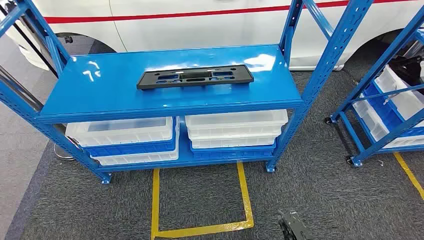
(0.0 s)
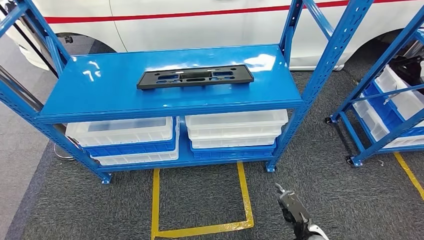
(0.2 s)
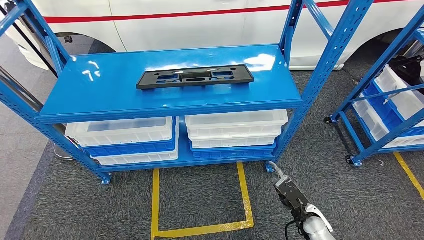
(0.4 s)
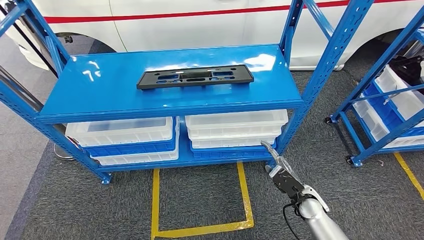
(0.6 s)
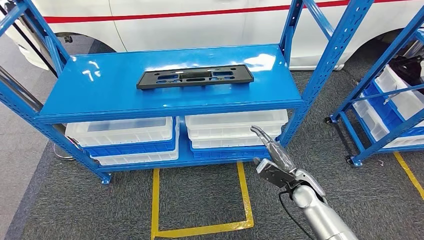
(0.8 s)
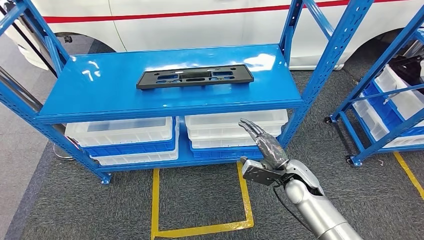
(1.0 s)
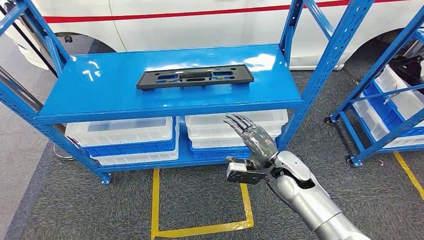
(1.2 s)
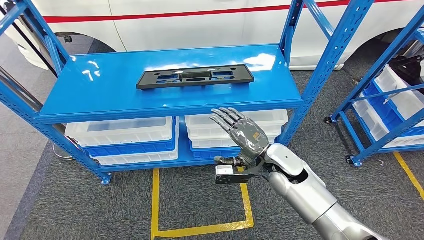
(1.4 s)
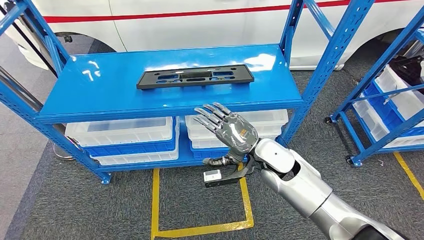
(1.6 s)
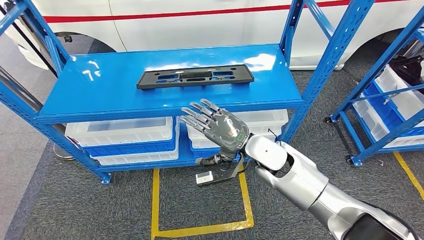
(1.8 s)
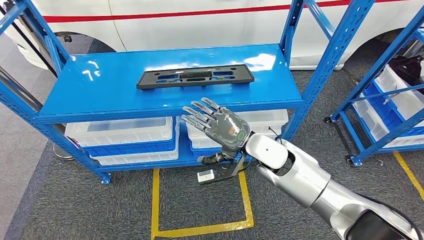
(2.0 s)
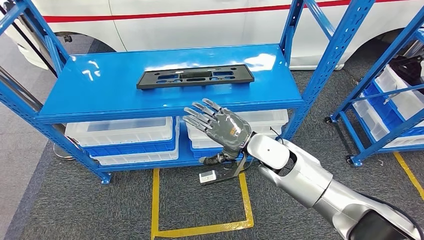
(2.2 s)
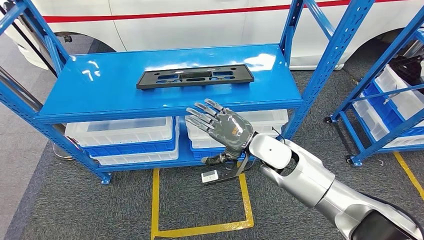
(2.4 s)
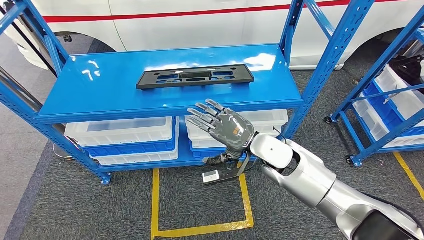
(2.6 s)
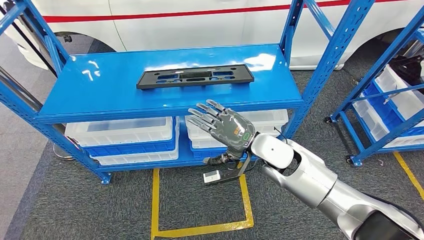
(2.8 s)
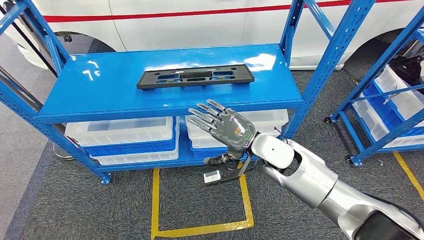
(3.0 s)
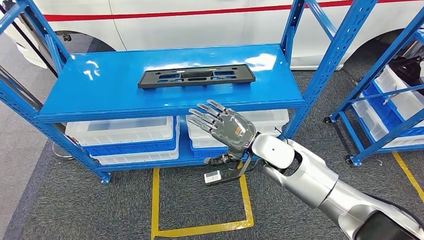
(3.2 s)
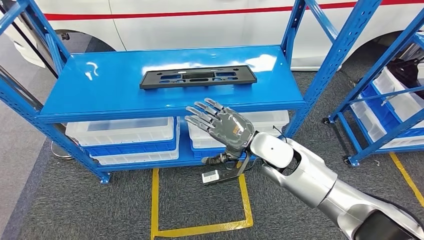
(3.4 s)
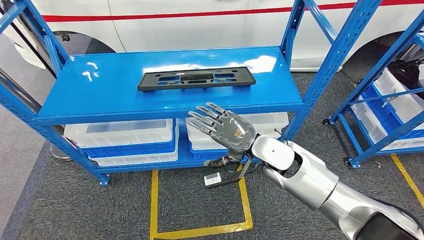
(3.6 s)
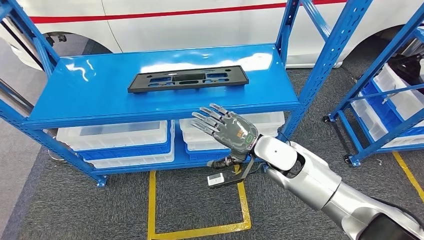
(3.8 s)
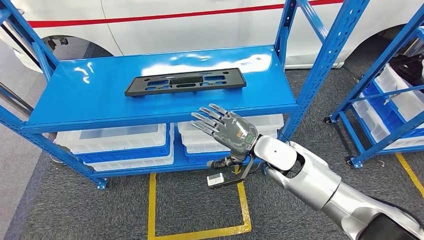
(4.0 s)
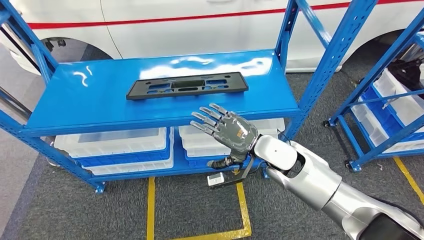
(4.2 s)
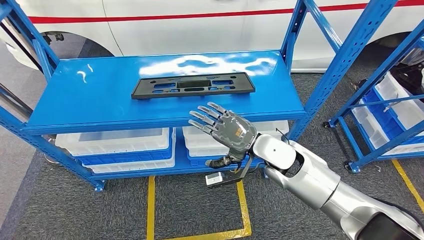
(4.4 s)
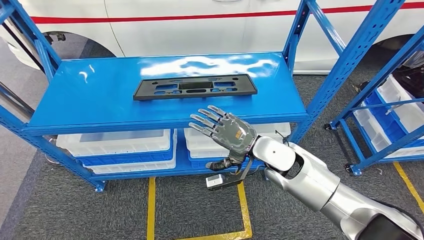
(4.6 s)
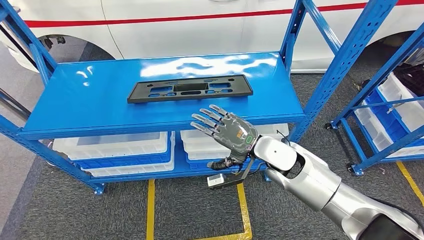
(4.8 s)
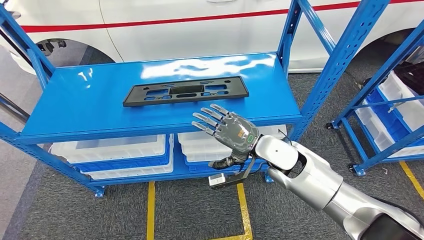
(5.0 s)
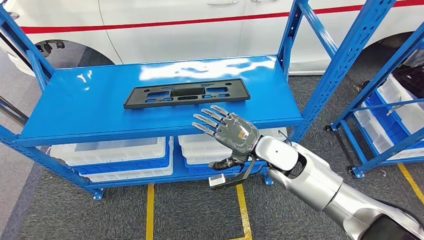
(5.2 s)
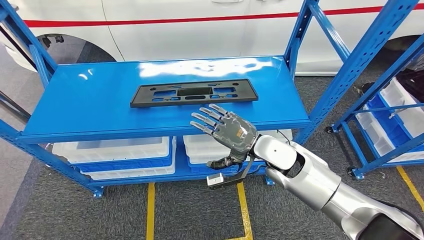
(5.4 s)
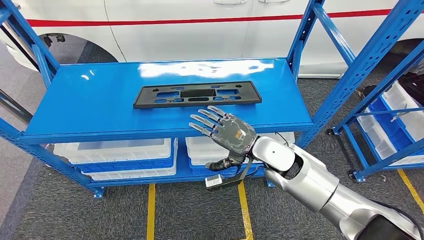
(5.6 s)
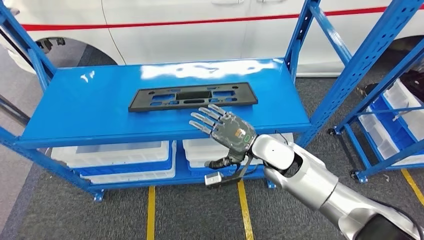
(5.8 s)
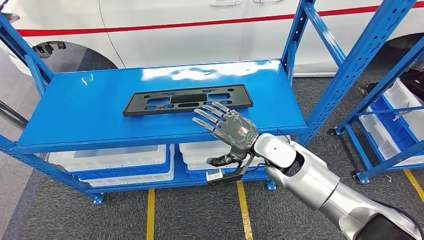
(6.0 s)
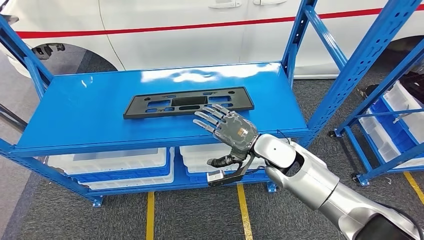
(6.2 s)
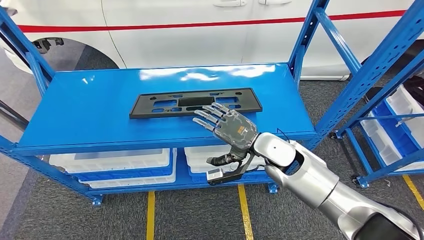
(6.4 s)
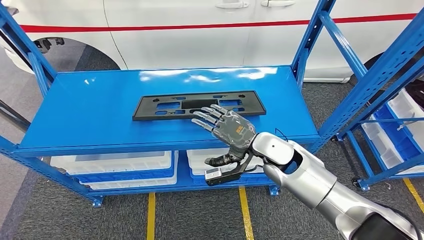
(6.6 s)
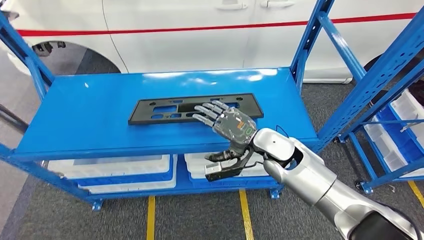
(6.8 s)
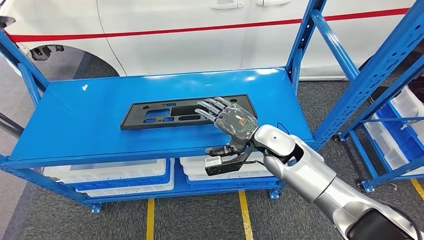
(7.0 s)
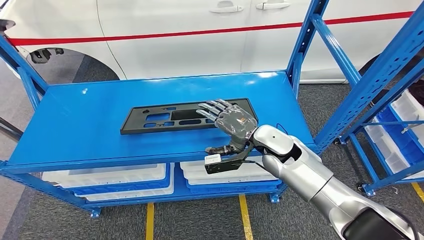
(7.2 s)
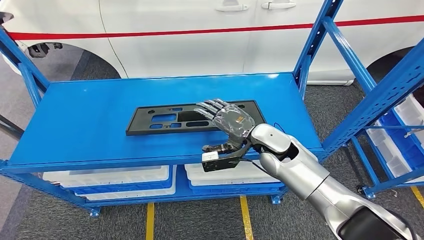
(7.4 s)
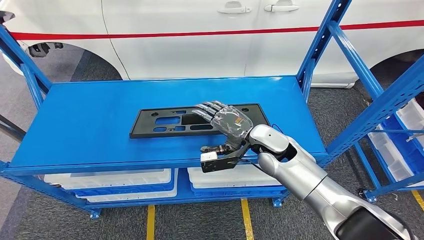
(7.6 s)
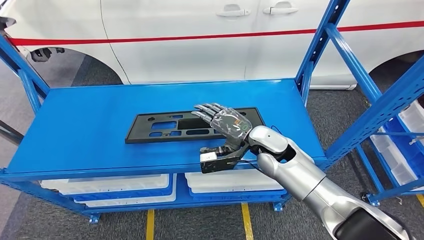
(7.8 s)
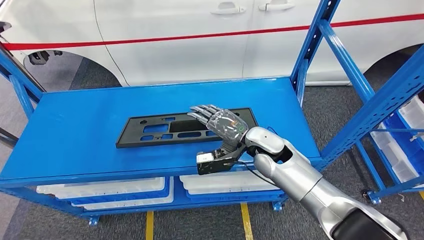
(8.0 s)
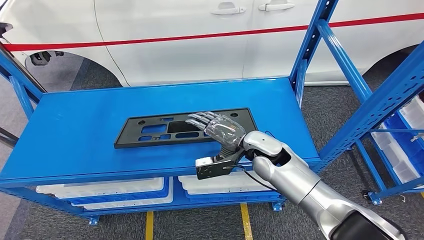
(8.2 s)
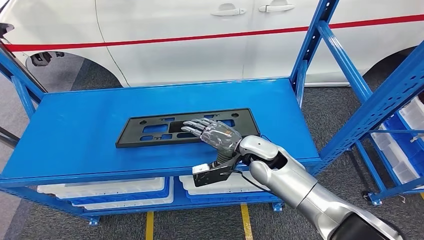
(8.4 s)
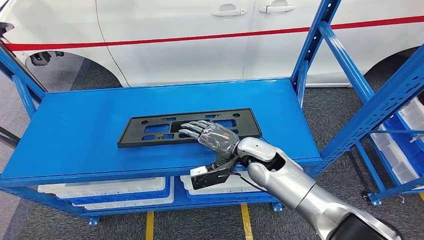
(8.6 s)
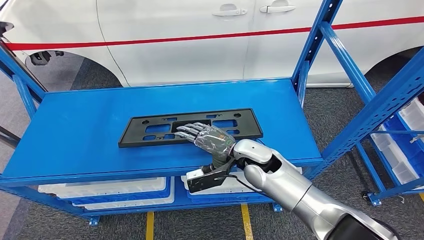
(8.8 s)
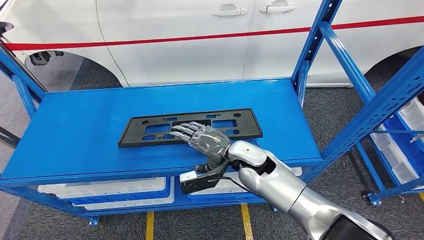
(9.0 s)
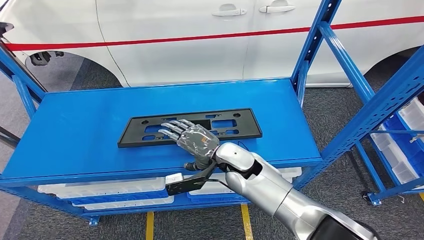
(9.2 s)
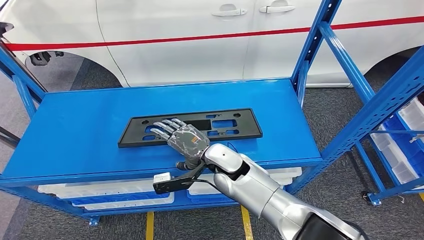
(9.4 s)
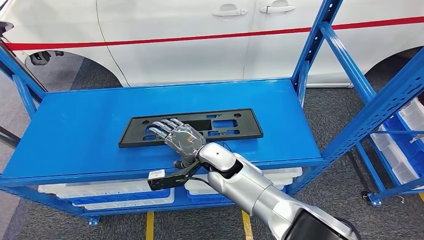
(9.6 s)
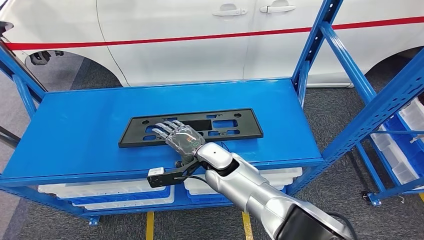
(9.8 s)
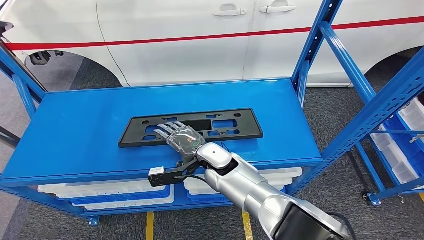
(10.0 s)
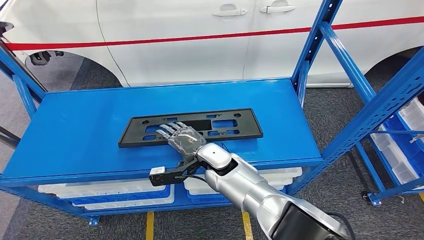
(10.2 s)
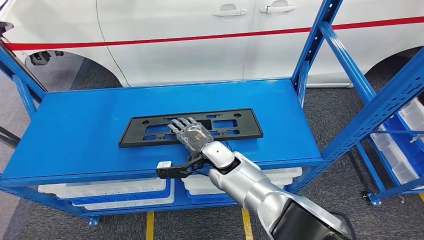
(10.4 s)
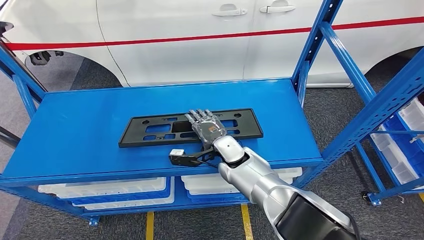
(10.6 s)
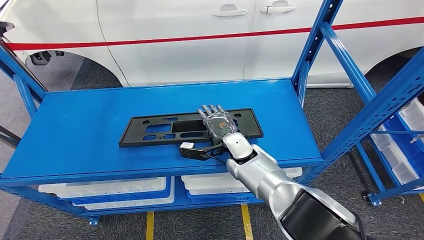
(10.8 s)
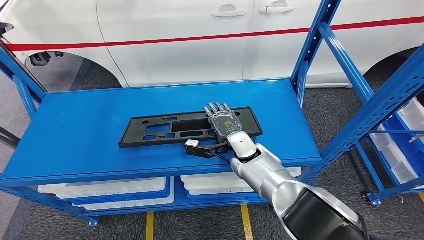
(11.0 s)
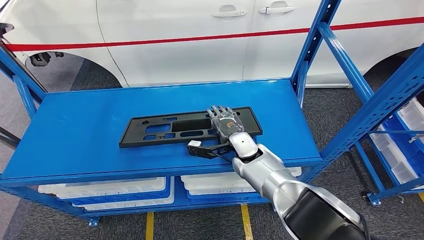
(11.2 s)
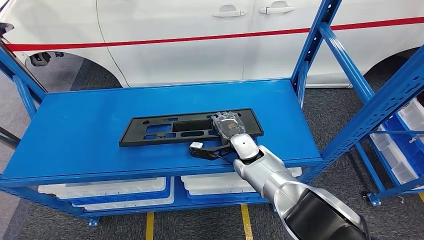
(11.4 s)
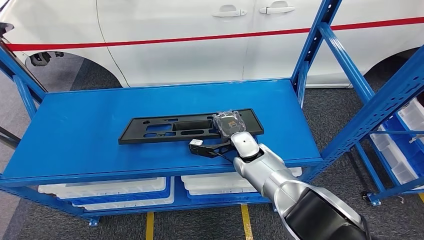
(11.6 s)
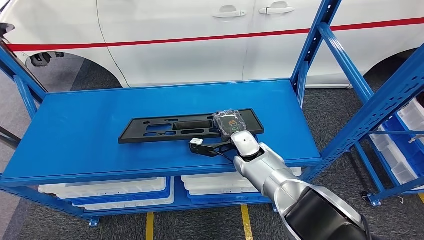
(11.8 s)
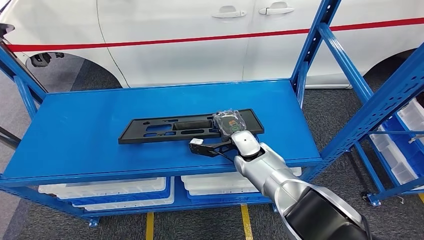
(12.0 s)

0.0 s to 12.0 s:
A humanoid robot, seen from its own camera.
1.6 to 3.0 s: There are only small adjustments of the hands.
9.0 to 10.4 s: The right hand shifts approximately 10 cm to the left.
10.4 to 12.0 s: The right hand travels to the right by about 10 cm.

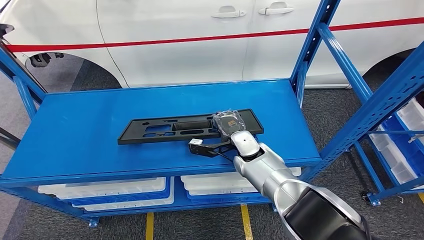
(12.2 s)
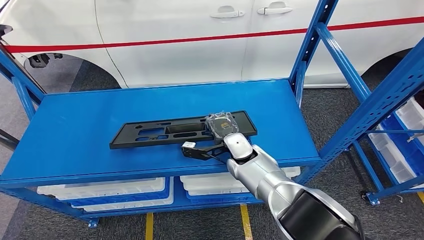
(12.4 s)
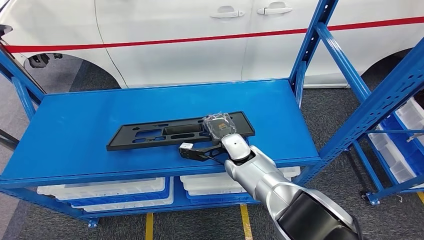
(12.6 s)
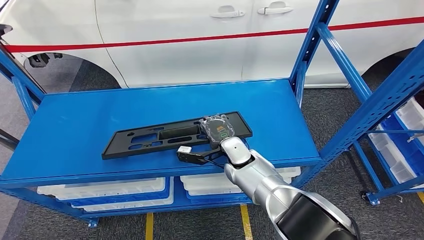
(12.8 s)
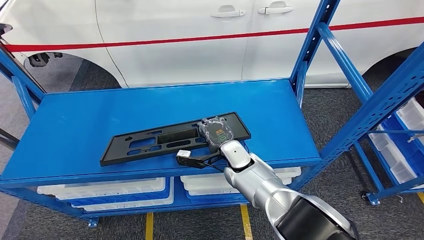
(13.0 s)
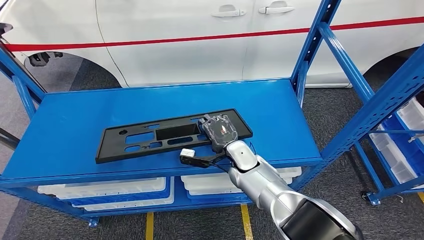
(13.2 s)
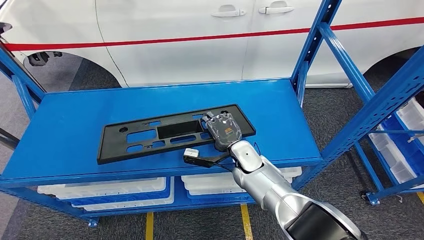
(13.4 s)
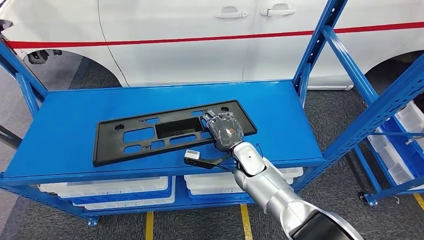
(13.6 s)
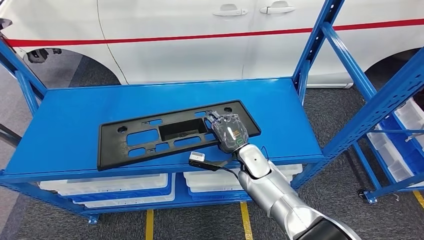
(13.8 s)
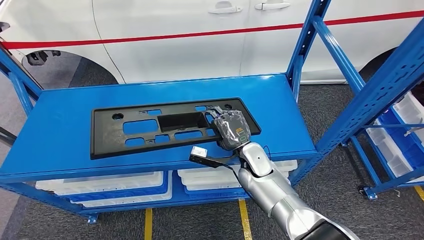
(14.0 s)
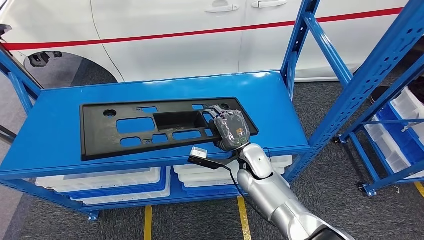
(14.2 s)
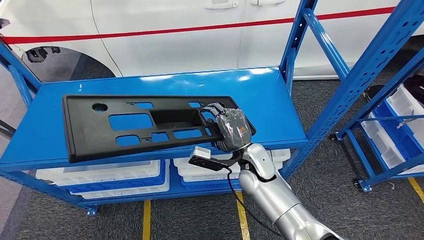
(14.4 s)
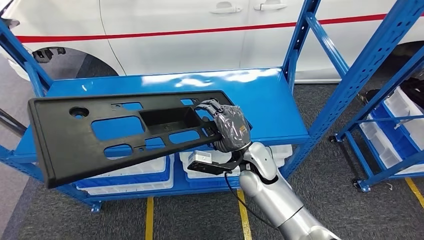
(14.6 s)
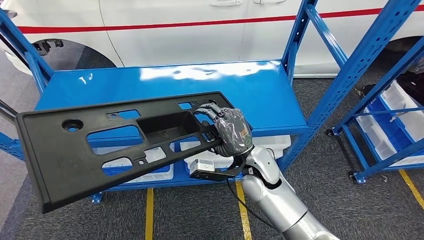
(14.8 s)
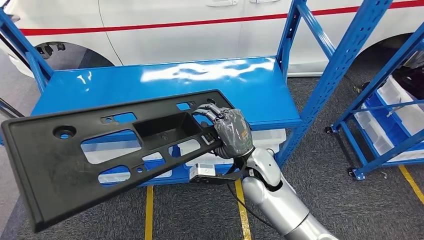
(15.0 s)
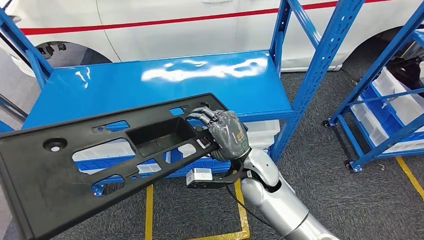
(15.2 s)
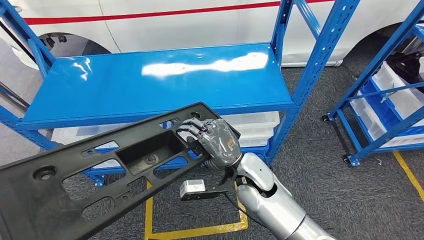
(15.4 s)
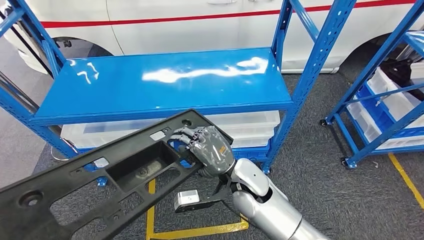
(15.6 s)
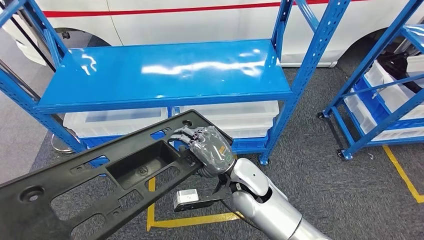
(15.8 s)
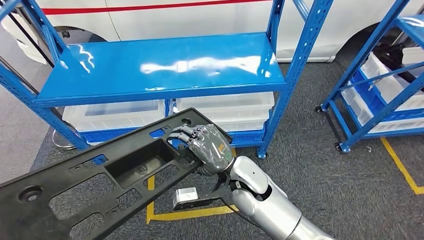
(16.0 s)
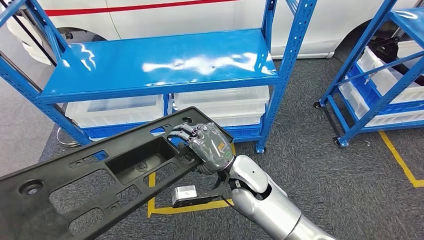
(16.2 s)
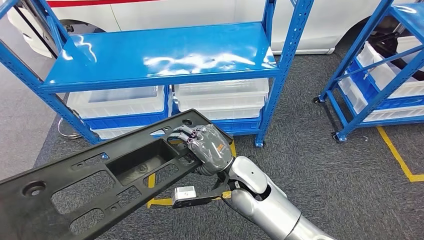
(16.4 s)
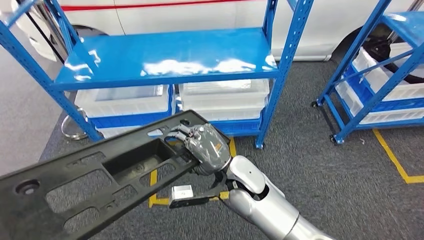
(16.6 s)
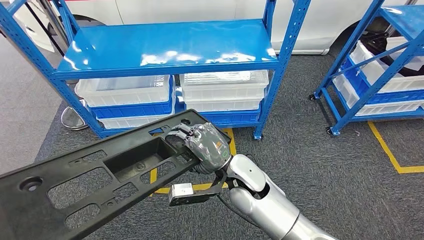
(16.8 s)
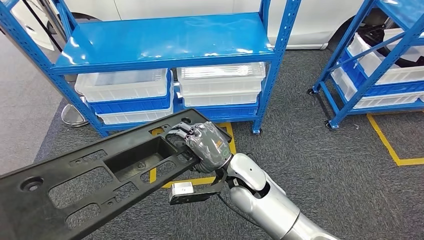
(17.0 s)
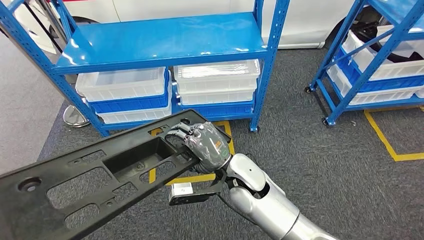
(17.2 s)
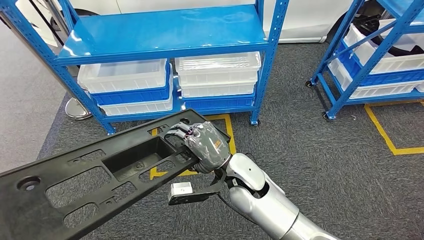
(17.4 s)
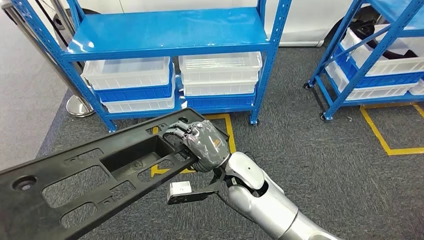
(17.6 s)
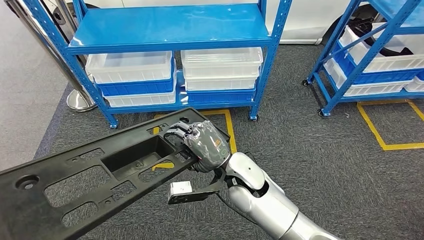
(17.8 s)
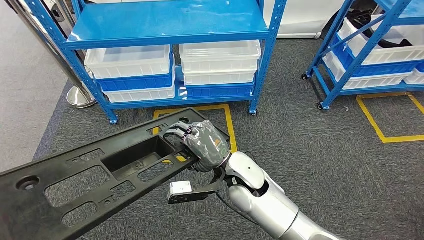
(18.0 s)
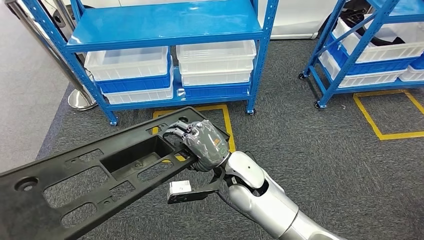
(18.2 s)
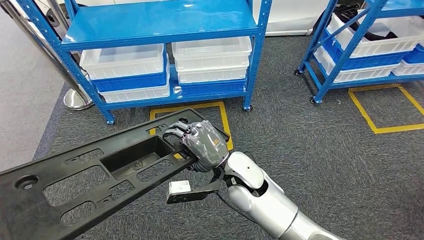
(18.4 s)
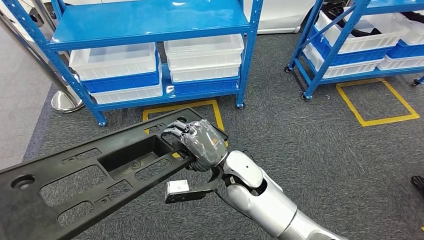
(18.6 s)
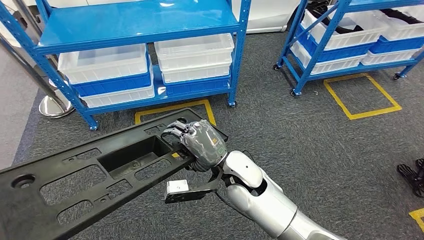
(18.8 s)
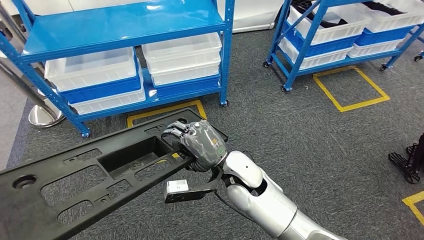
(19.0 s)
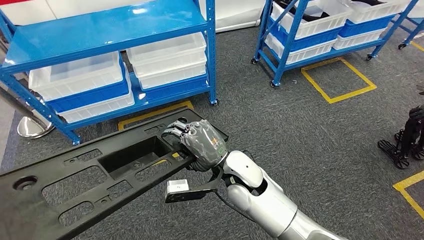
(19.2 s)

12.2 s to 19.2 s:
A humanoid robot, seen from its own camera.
Step, 12.2 to 15.4 s: Pick up the large material from the shelf.
